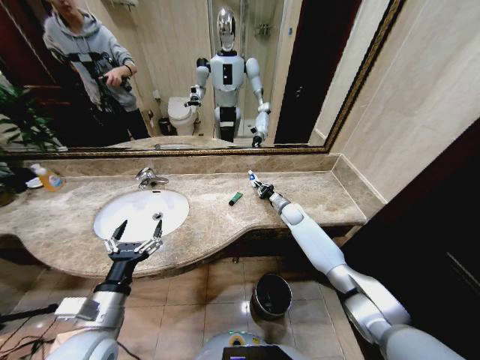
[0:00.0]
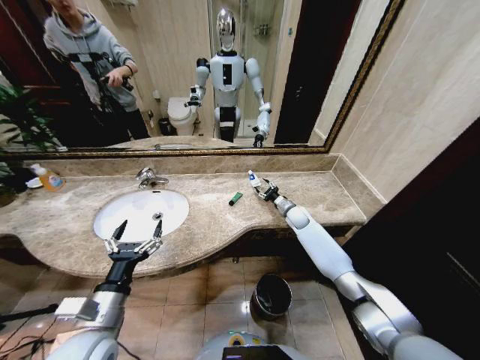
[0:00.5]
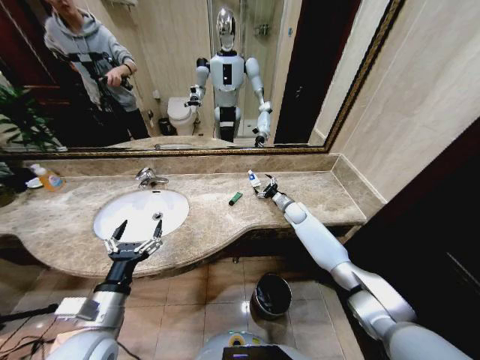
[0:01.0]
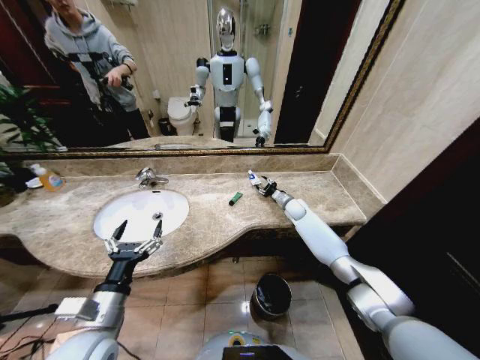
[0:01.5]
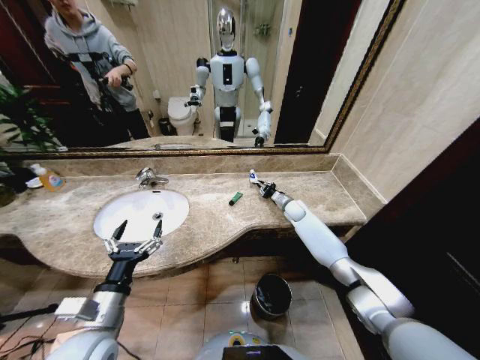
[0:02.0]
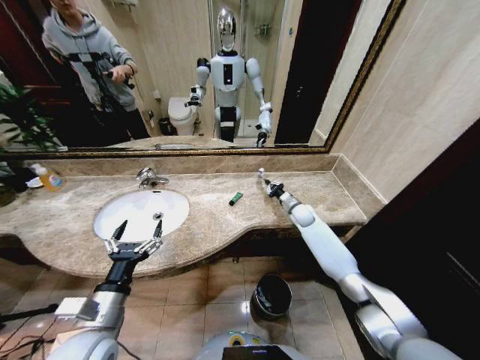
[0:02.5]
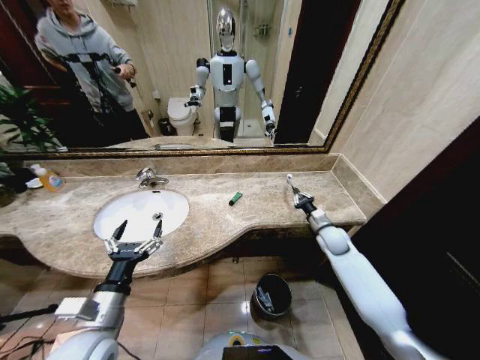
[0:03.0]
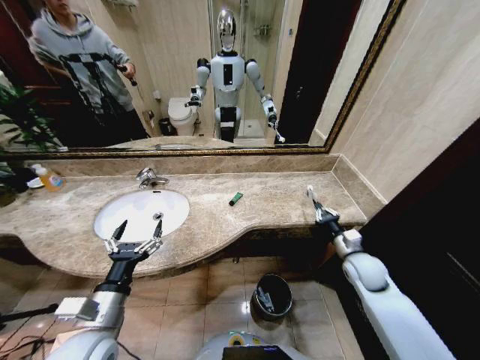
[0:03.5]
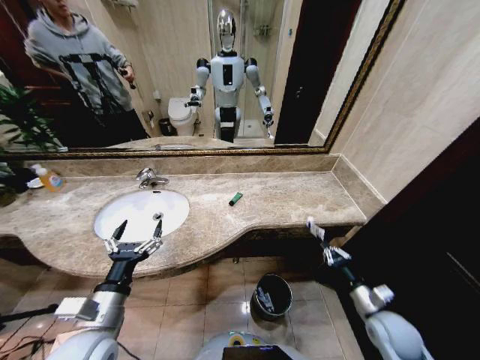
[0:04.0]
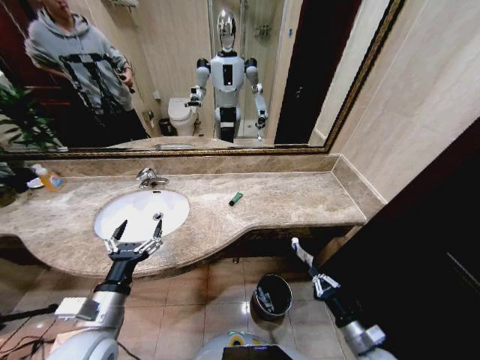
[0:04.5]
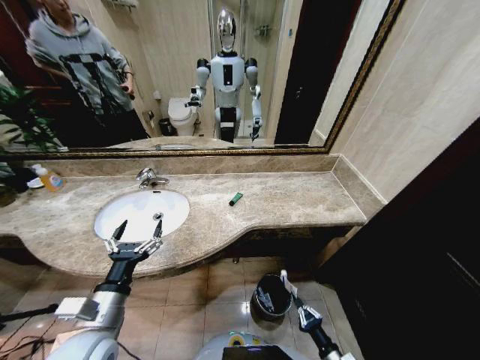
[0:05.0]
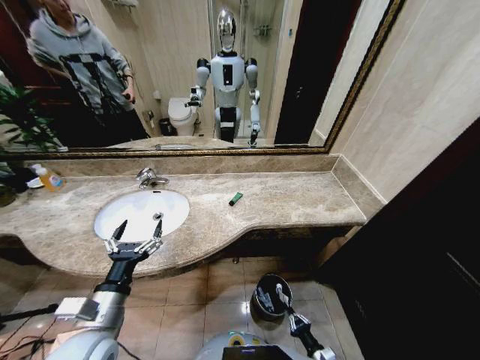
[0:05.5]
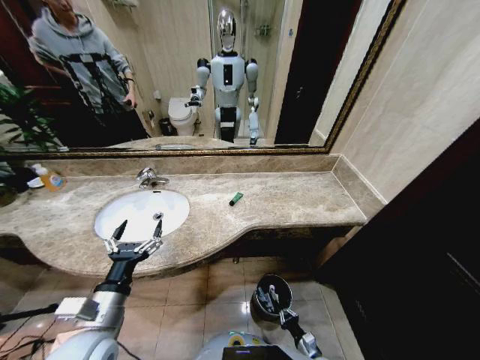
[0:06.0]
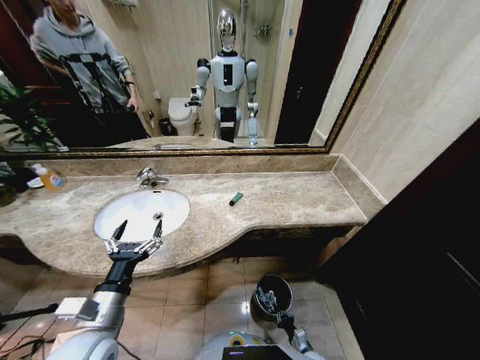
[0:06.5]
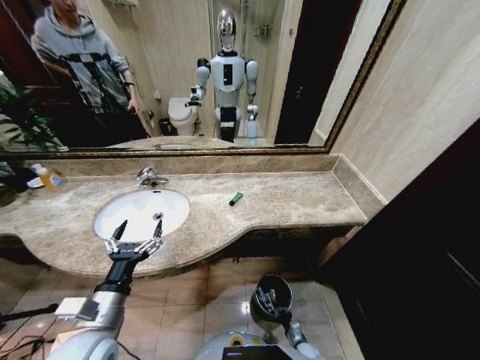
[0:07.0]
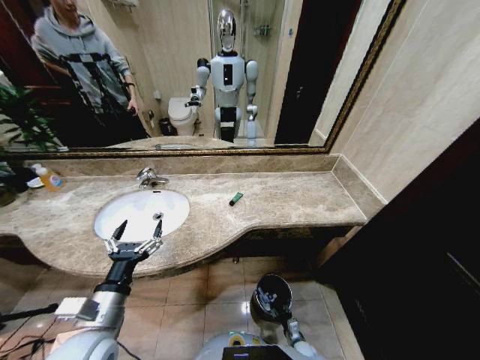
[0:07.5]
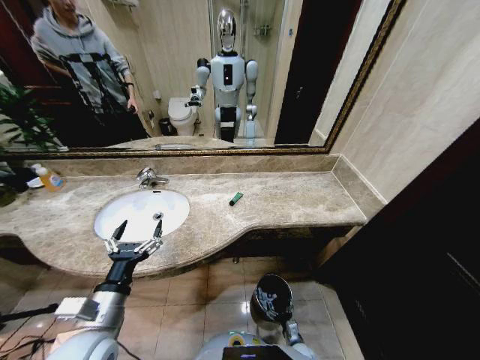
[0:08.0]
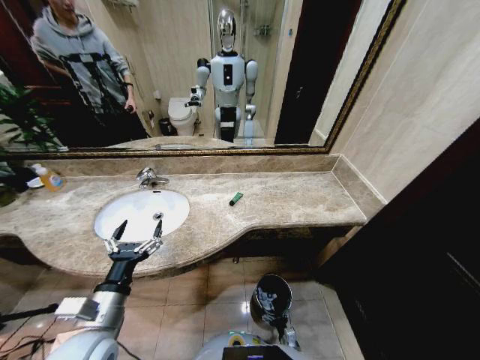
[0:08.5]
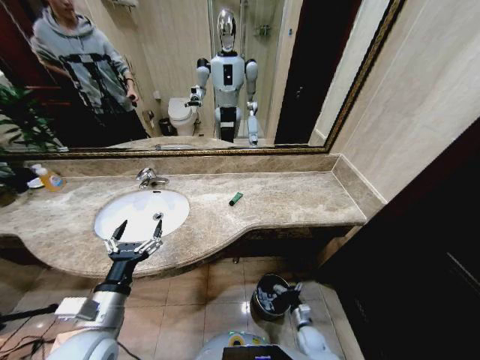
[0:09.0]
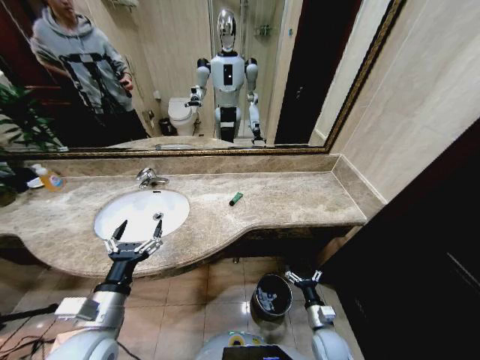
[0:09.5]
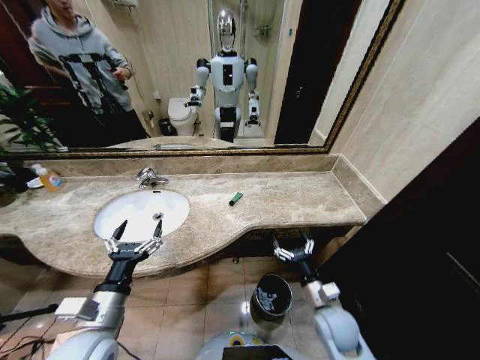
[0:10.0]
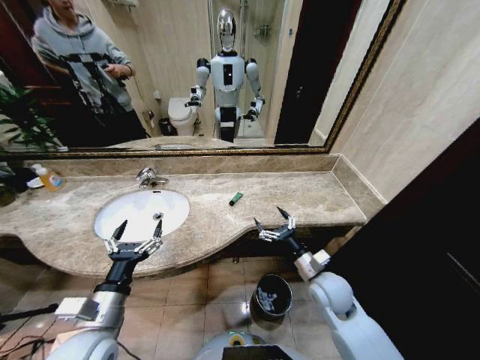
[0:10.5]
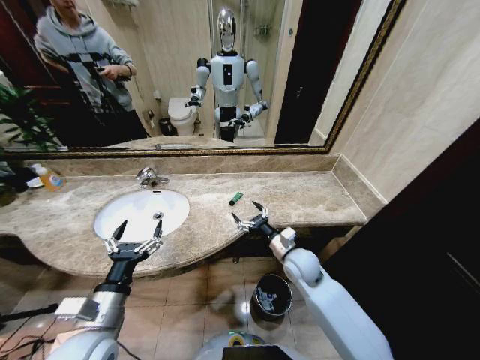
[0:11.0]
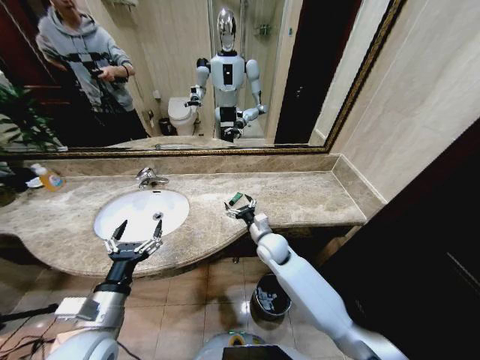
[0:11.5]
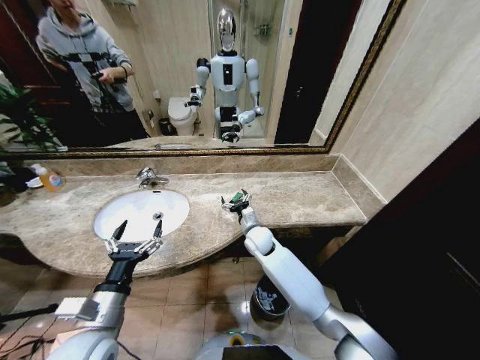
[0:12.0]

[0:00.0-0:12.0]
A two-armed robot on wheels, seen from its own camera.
Task of the whole recording: Pick up the trash from the sink and place it in the trash bin.
0.0 to 2.0 s: The right gripper opens and closes again.
2.0 to 4.0 s: The right gripper shifts some 40 cm backward.
4.0 to 6.0 s: The right gripper shifts about 30 cm downward.
6.0 to 8.0 s: The right gripper heads downward, covering roughly 5 cm, and opens up.
8.0 to 10.0 s: The right gripper heads upward, covering some 35 cm.
10.0 to 12.0 s: The right gripper moves forward and to the left, some 30 cm.

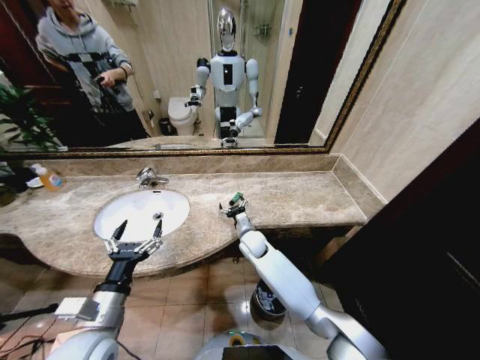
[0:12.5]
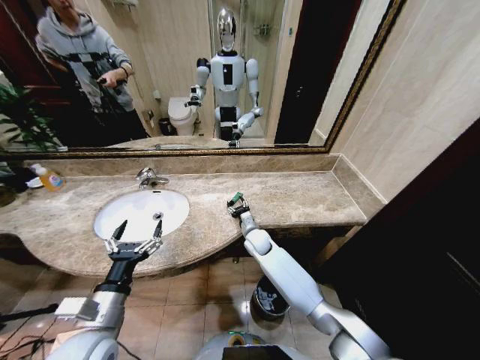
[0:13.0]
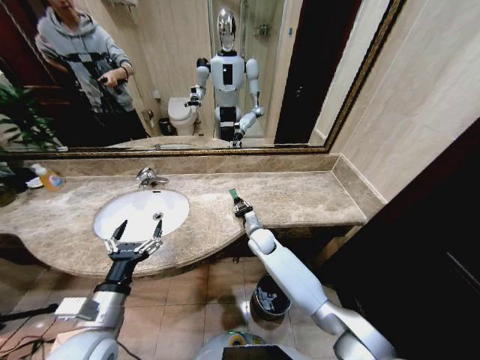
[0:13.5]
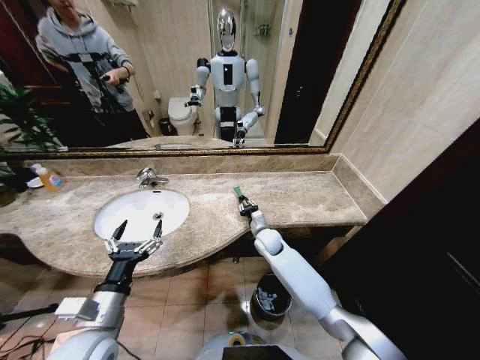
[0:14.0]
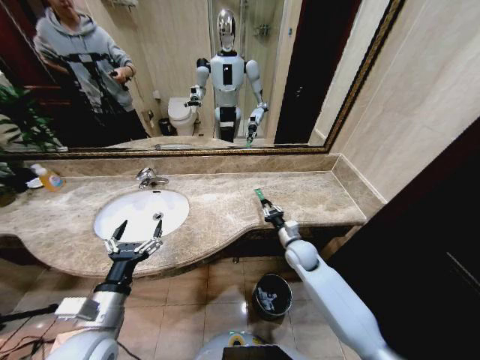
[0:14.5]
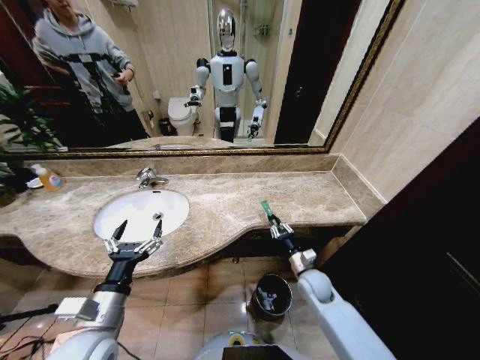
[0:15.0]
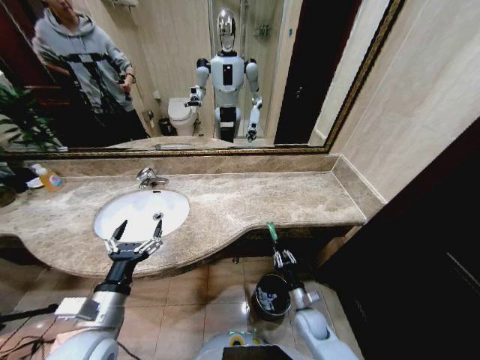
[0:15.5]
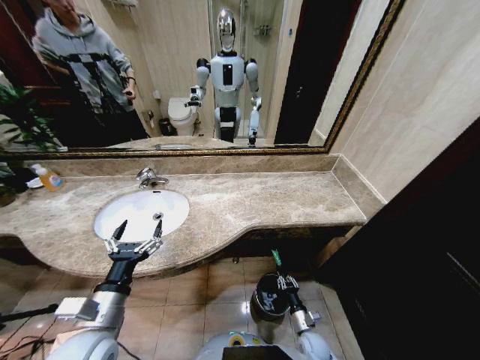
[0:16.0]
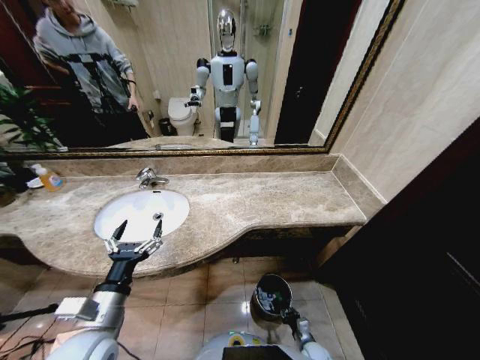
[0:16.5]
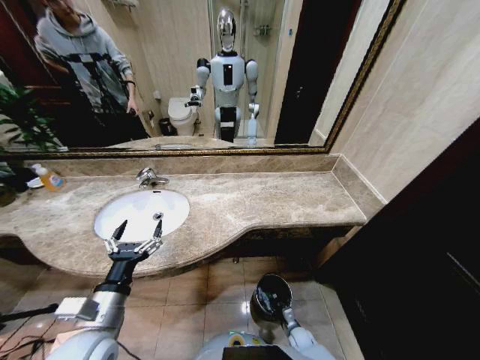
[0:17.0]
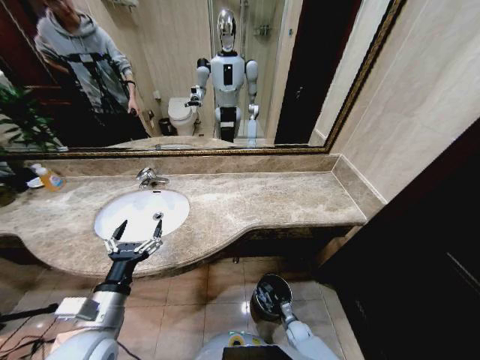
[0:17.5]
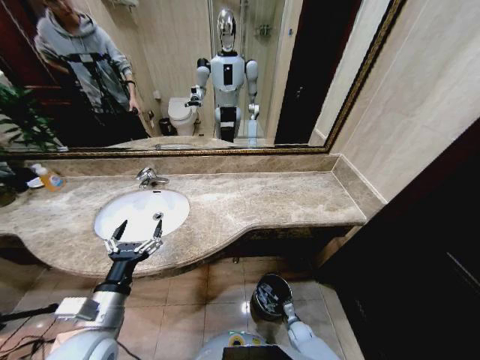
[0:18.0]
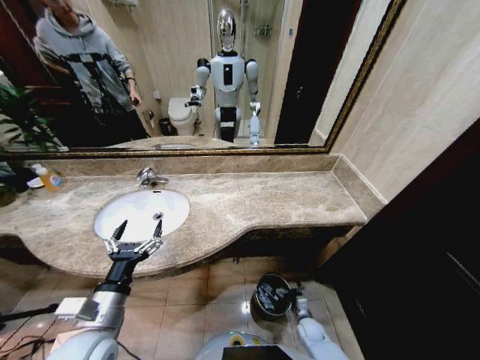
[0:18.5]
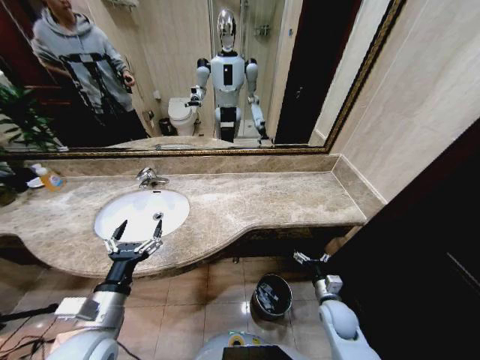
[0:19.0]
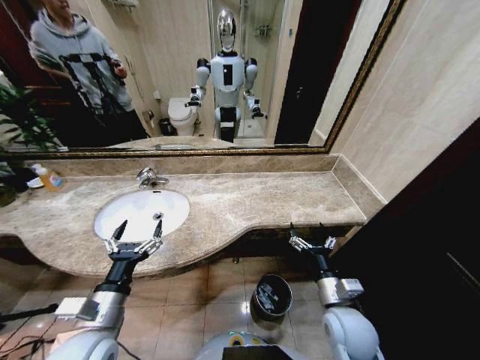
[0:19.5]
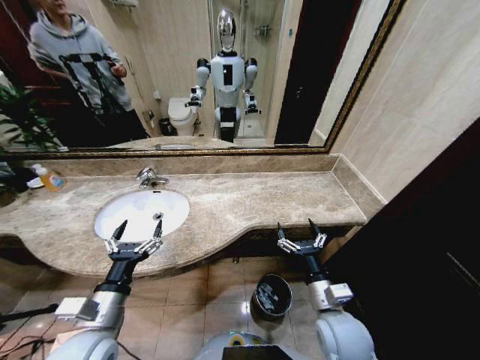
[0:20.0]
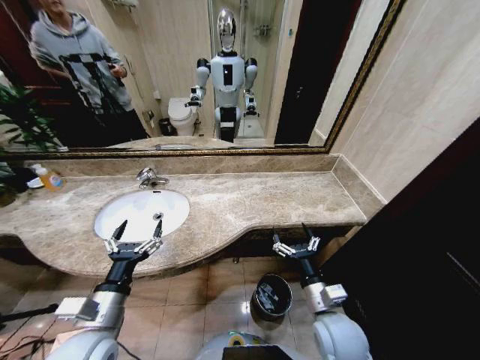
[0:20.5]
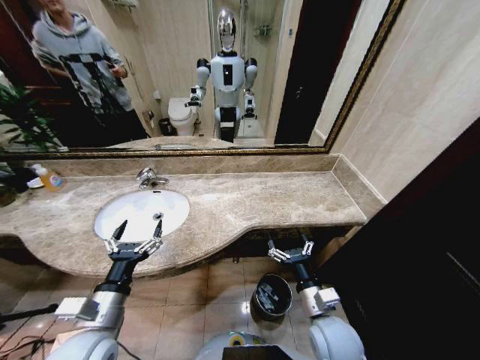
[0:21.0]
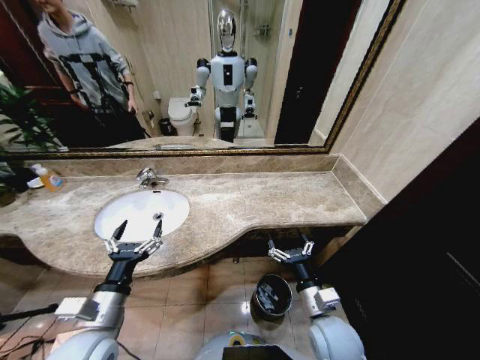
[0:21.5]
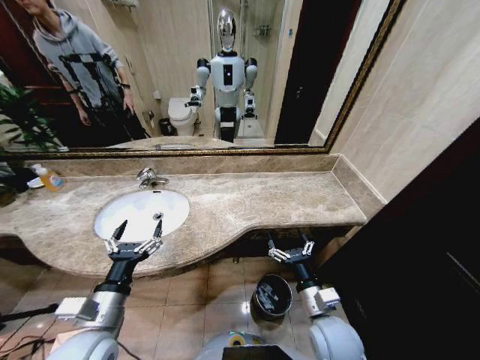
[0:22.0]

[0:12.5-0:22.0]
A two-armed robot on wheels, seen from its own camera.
Task of the whole recording: Pick up the trash from the sink and place it in the trash bin.
12.5 to 14.5 s: The right gripper goes roughly 15 cm to the right, and closes up.
14.5 to 16.5 s: The right gripper travels downward and backward by approximately 40 cm.
16.5 to 18.0 s: The right gripper shifts approximately 5 cm forward, and opens up.
18.0 to 20.0 s: The right gripper is displaced upward by roughly 40 cm.
20.0 to 22.0 s: The grippers make only small movements.

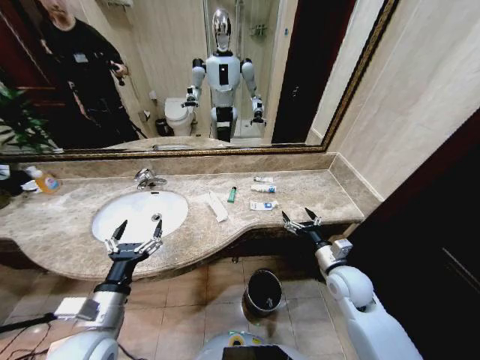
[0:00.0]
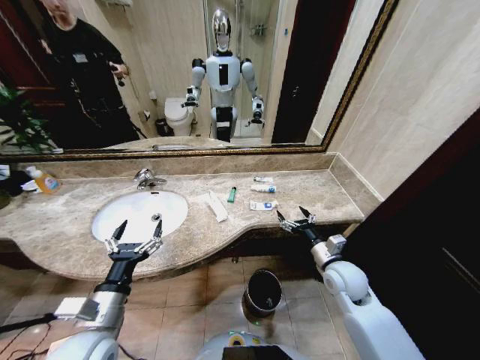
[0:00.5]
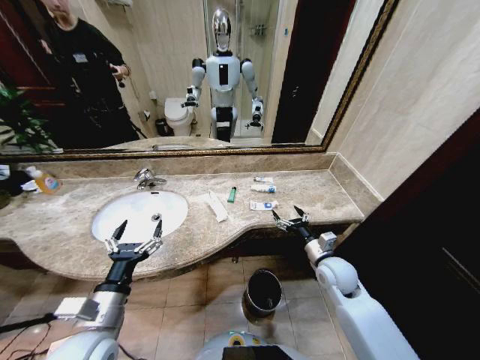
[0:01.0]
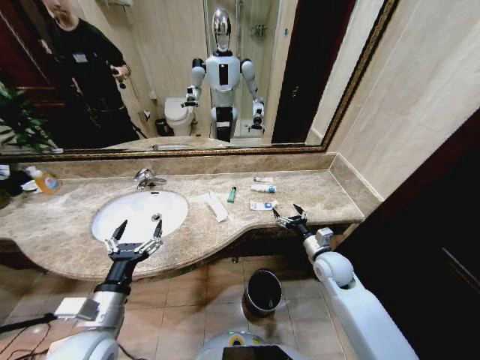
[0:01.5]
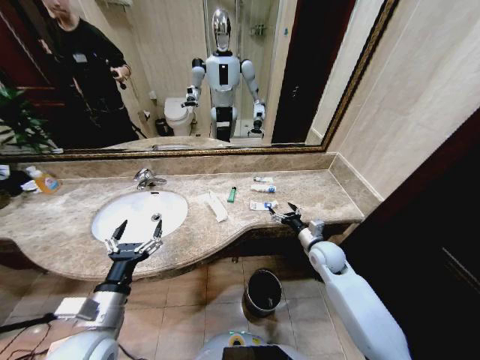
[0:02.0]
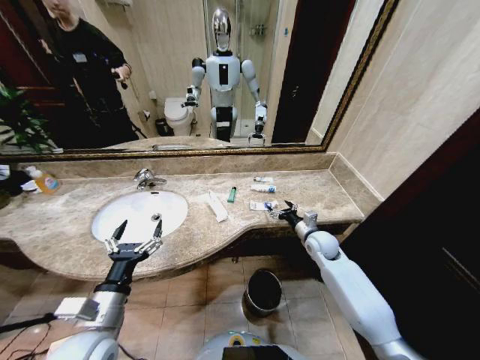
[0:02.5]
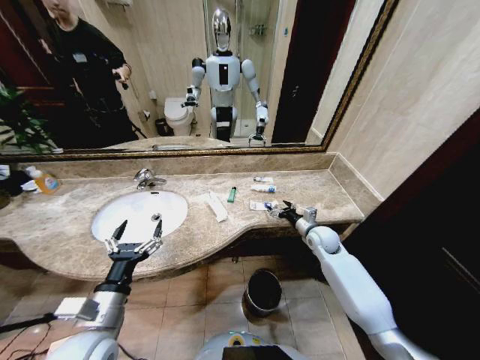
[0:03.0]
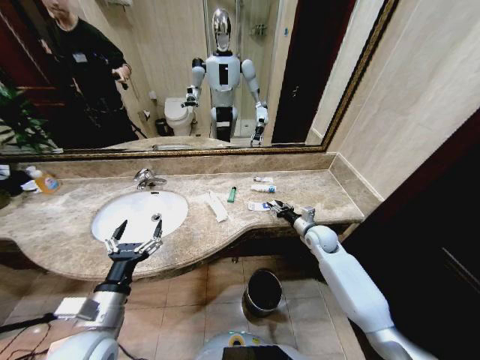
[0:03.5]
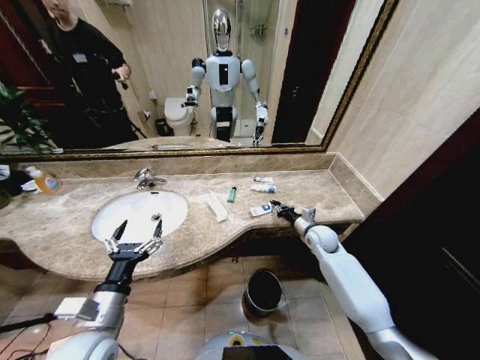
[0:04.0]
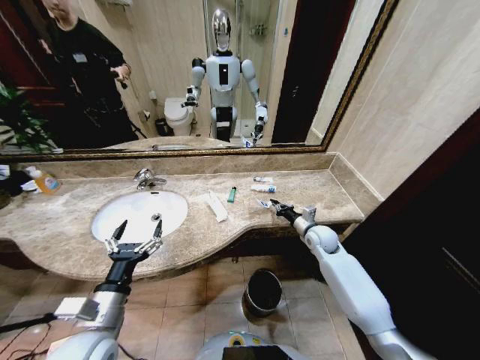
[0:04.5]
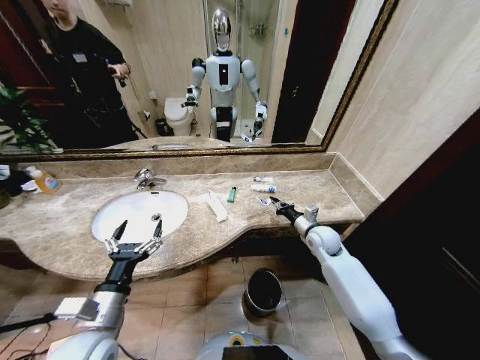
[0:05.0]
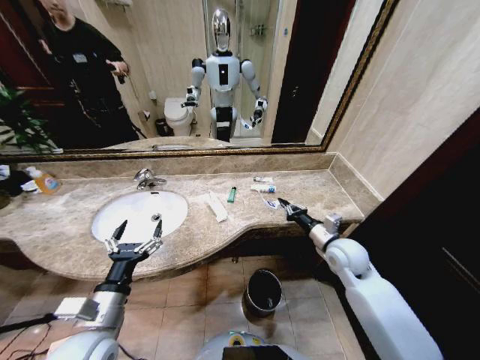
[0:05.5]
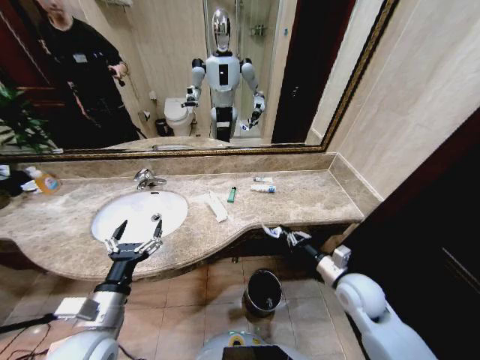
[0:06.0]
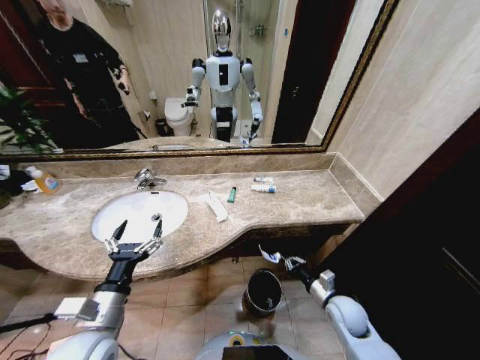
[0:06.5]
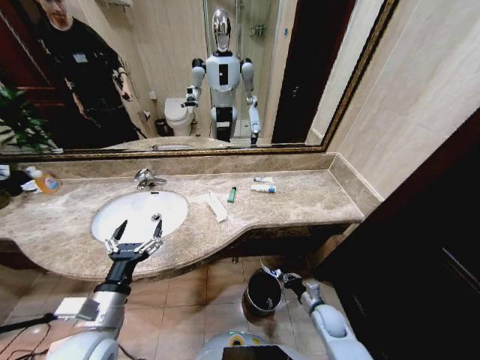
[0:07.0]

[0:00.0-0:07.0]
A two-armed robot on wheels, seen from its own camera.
Task of the whole recording: Pick up the trash from the sink and place it in the trash bin.
2.0 to 3.5 s: The right gripper heads forward, covering roughly 5 cm, and closes.
3.5 to 5.0 s: The right gripper closes up.
5.0 to 7.0 s: The right gripper heads downward and backward, covering about 25 cm.
